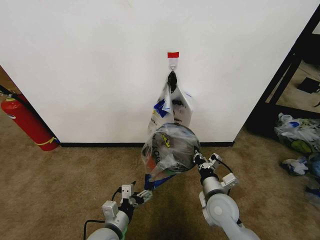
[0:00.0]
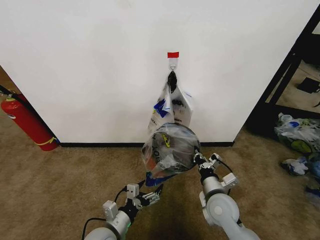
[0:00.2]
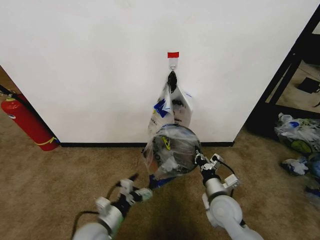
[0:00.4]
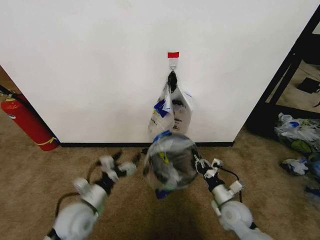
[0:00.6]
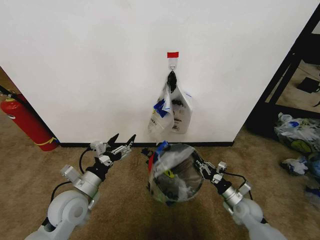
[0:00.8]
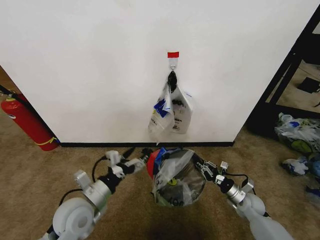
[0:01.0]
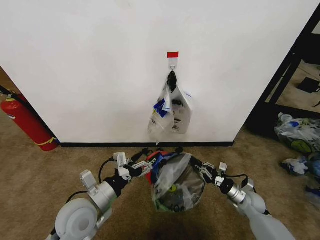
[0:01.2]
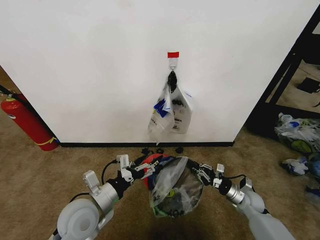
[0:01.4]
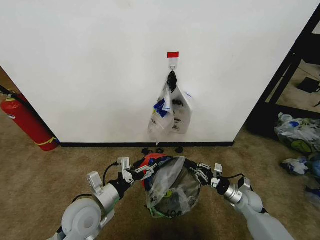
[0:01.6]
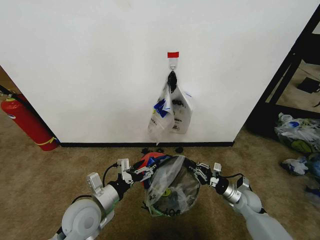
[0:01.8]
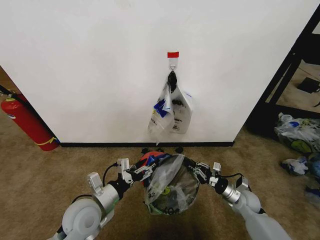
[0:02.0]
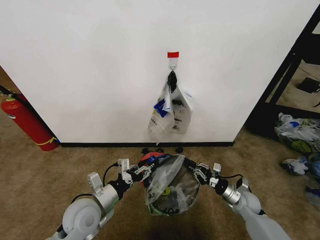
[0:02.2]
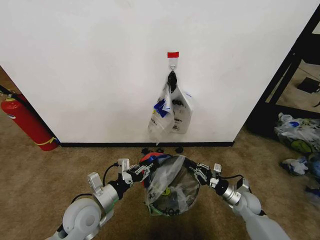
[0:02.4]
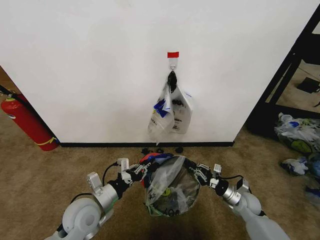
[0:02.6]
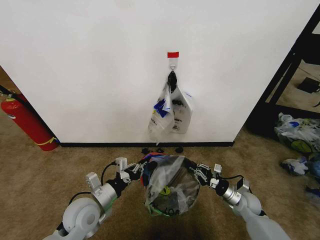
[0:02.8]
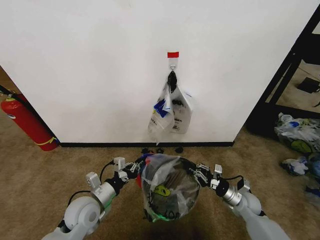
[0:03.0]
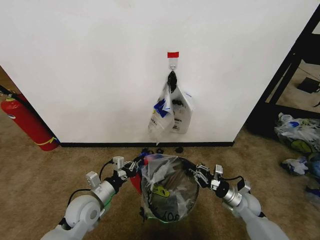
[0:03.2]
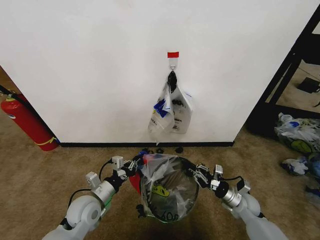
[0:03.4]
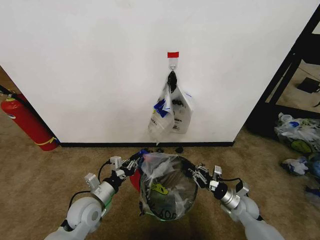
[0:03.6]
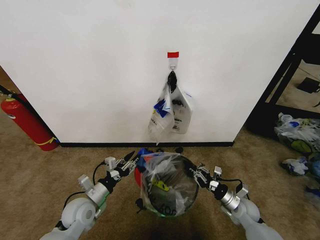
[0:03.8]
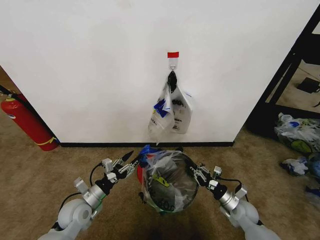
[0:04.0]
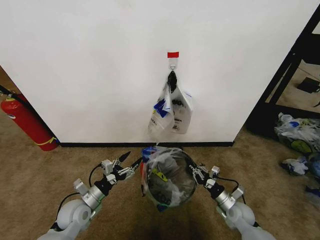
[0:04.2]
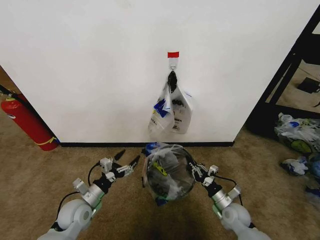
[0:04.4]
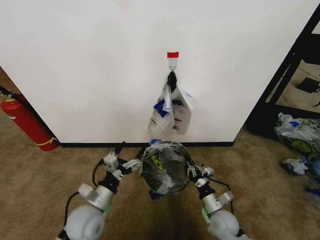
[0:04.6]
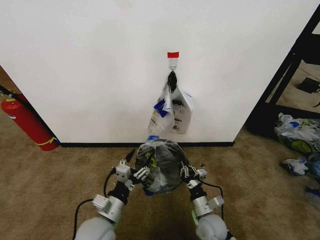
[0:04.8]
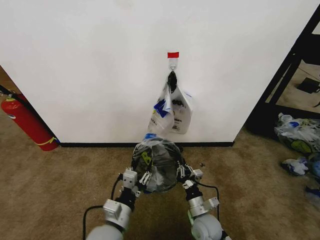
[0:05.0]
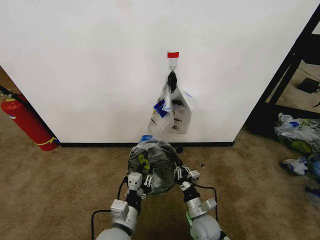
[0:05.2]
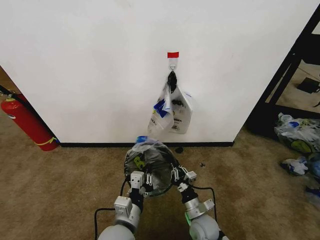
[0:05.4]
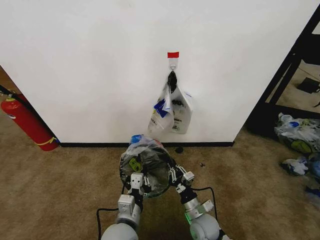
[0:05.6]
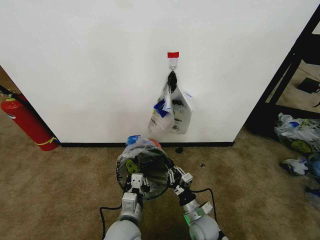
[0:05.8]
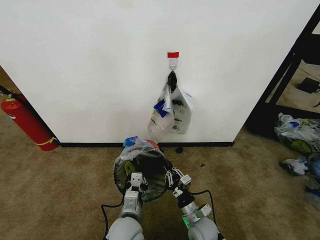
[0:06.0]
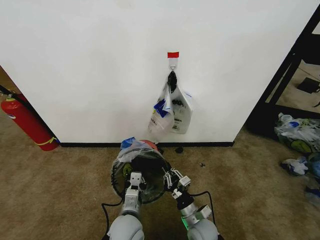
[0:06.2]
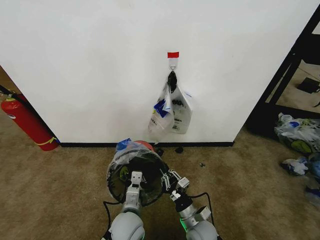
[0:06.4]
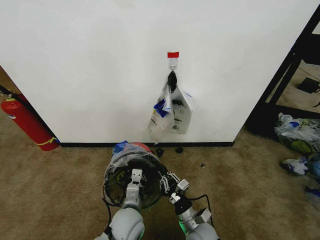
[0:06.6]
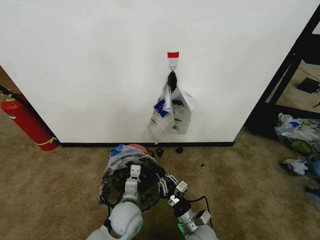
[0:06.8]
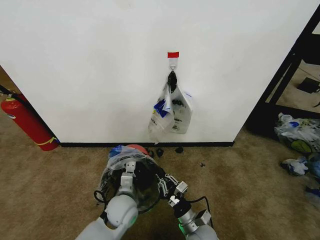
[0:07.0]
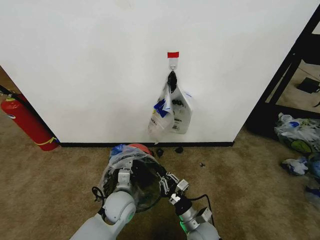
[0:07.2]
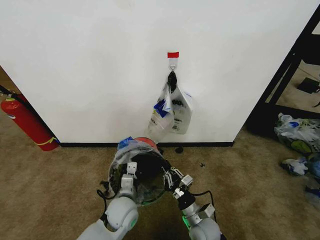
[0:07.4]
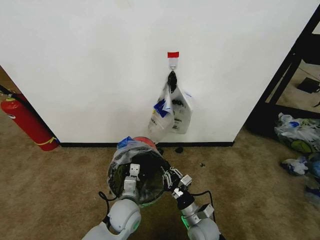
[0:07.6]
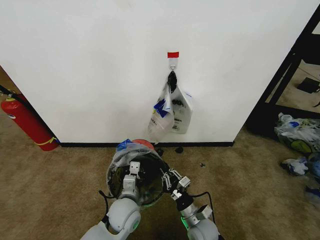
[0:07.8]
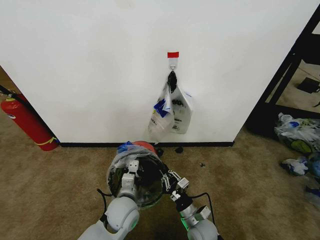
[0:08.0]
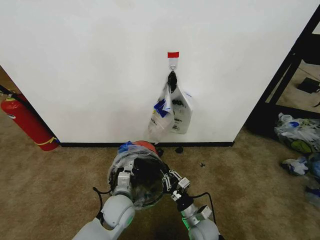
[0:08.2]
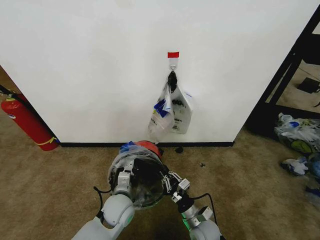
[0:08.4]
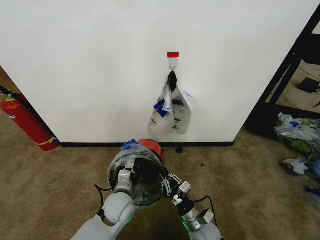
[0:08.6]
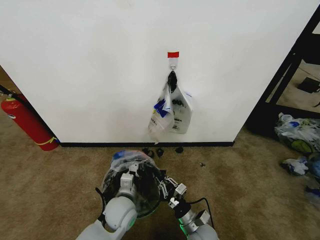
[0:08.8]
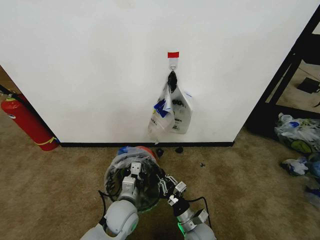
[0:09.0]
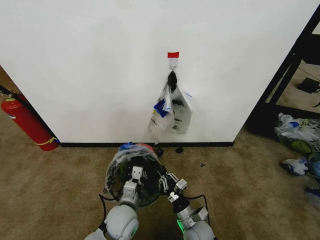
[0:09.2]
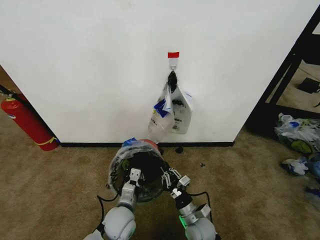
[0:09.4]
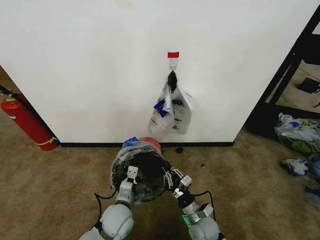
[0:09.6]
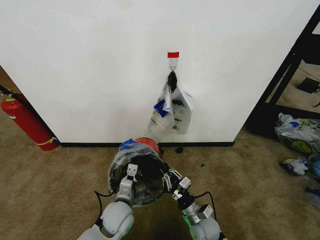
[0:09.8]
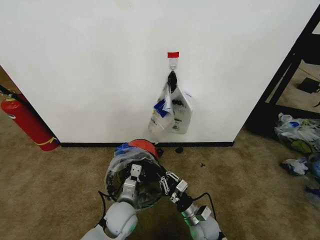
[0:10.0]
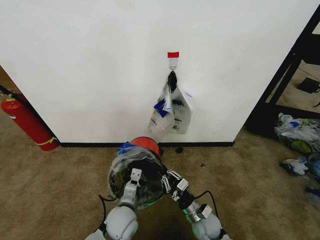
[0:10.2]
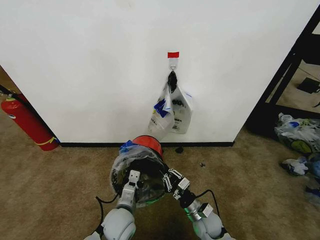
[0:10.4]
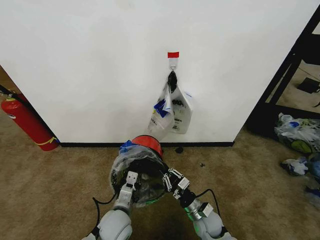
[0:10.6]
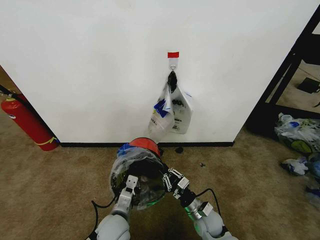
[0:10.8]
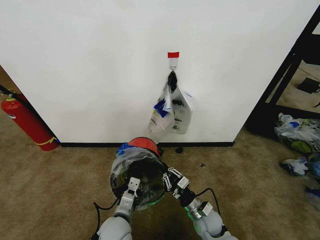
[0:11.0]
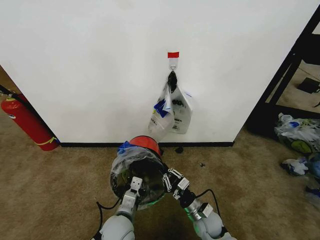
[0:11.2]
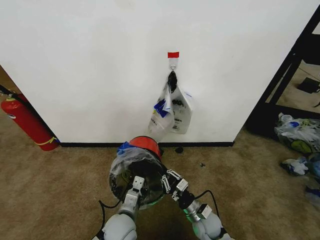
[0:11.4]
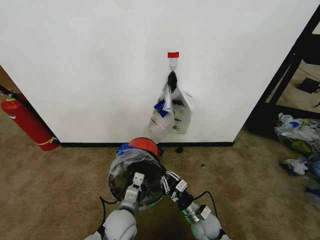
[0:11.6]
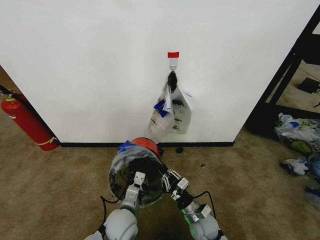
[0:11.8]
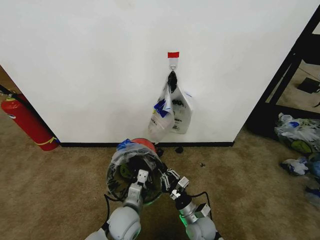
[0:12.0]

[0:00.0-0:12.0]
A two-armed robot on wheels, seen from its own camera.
Task of the whole recording: Pick up the garbage bag from the wall and place it over the trash bin.
0:00.0 to 0:01.6: The left gripper shifts roughly 10 cm upward and forward; the right gripper shifts approximately 20 cm to the right and downward.
0:01.6 to 0:03.0: The left gripper moves some 5 cm, and closes up.
0:03.0 to 0:04.4: The right gripper moves to the left, roughly 5 cm; the left gripper shifts by approximately 5 cm, and opens.
0:04.4 to 0:06.0: The left gripper moves to the right, some 20 cm, and closes. The right gripper travels to the left by roughly 15 cm.
0:06.0 to 0:07.6: The left gripper shifts approximately 5 cm forward.
0:07.6 to 0:09.0: There are only small adjustments of the grippers.
0:09.0 to 0:10.4: The right gripper changes place by approximately 5 cm.
0:10.4 to 0:12.0: The grippers make only small movements.

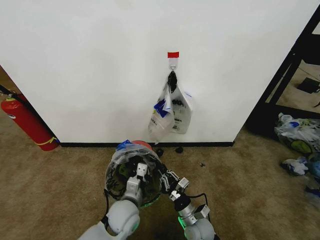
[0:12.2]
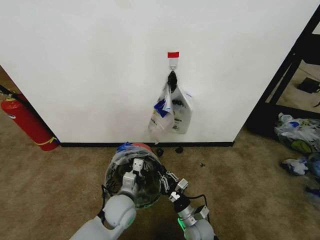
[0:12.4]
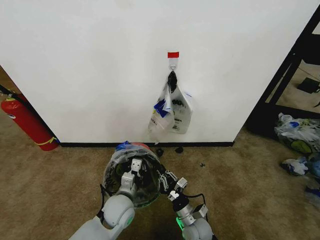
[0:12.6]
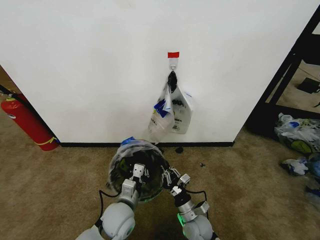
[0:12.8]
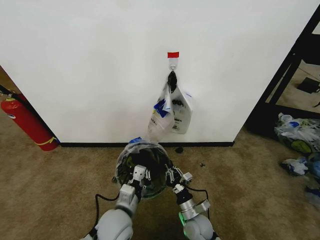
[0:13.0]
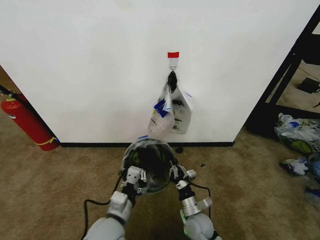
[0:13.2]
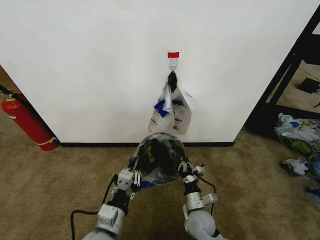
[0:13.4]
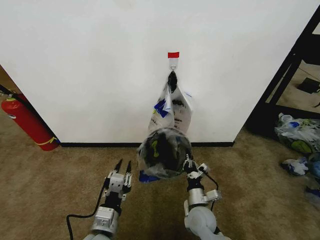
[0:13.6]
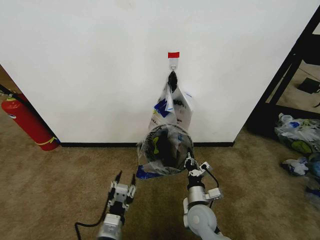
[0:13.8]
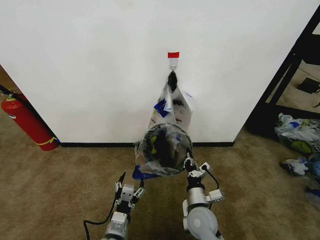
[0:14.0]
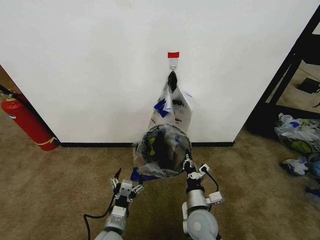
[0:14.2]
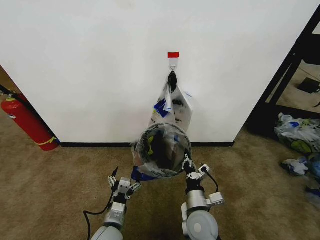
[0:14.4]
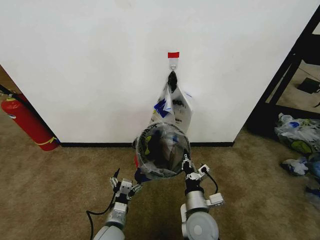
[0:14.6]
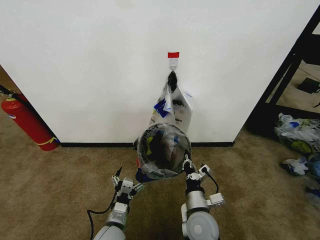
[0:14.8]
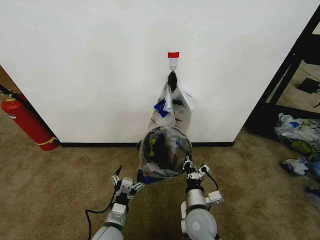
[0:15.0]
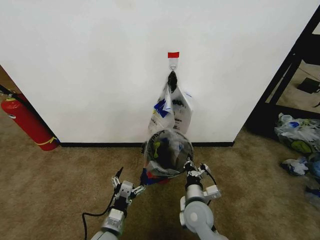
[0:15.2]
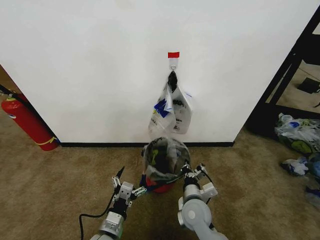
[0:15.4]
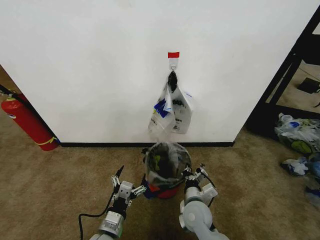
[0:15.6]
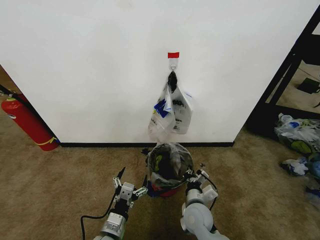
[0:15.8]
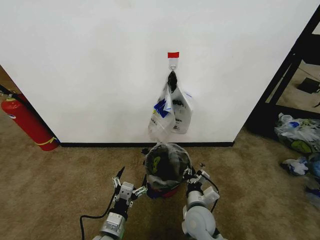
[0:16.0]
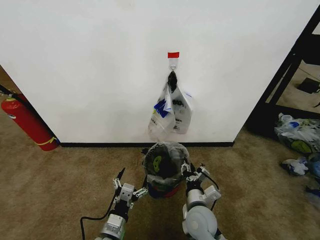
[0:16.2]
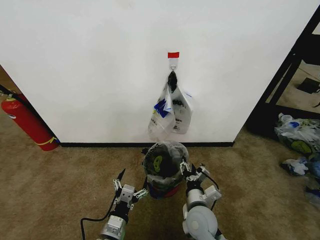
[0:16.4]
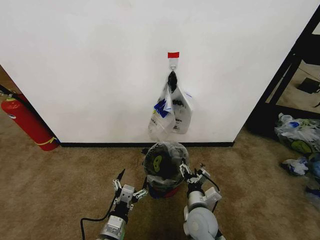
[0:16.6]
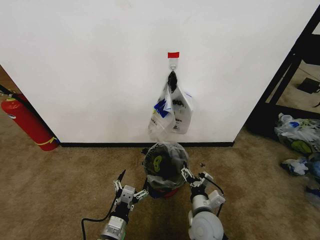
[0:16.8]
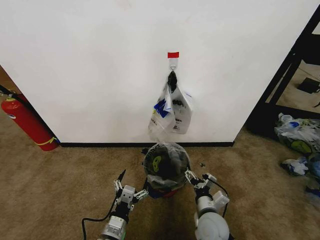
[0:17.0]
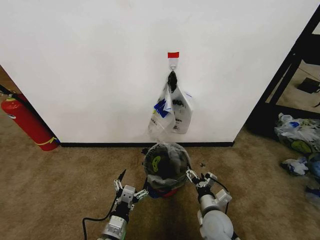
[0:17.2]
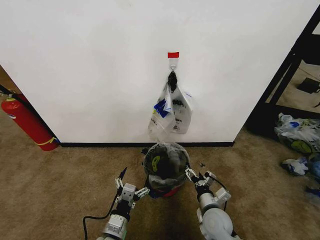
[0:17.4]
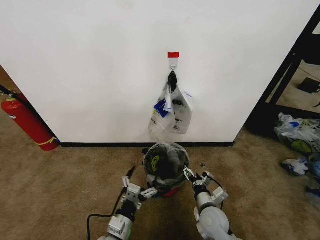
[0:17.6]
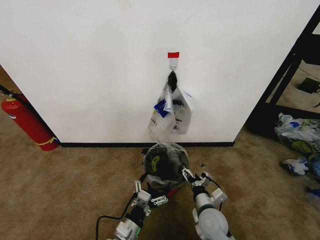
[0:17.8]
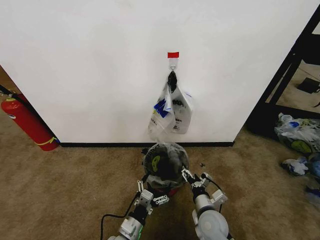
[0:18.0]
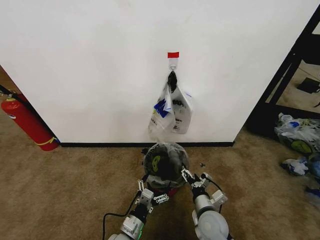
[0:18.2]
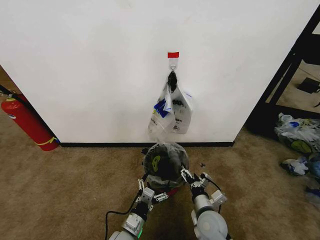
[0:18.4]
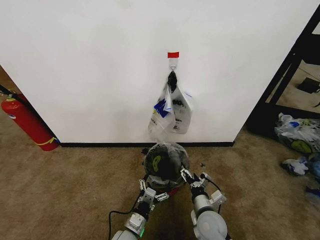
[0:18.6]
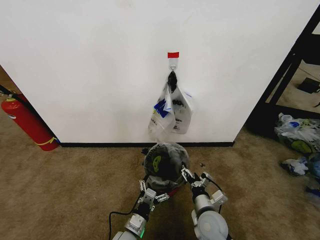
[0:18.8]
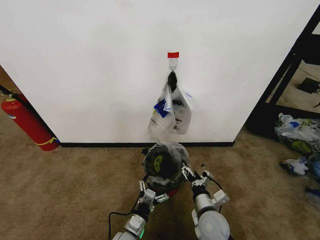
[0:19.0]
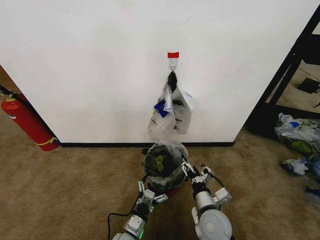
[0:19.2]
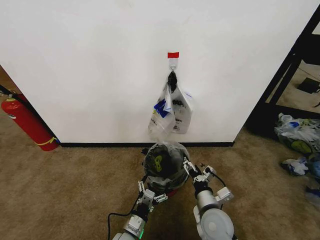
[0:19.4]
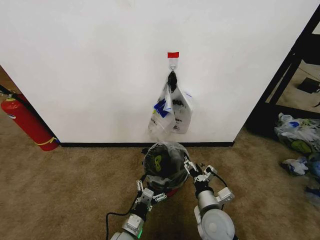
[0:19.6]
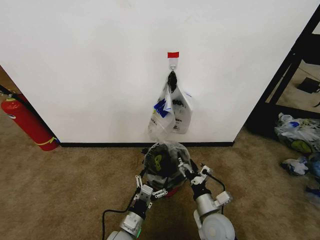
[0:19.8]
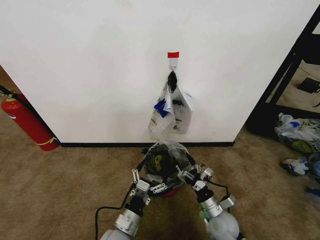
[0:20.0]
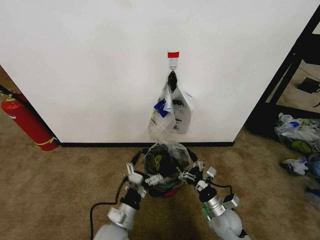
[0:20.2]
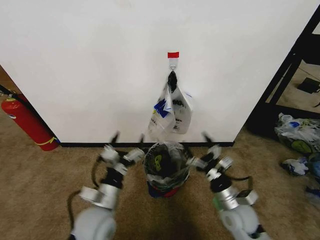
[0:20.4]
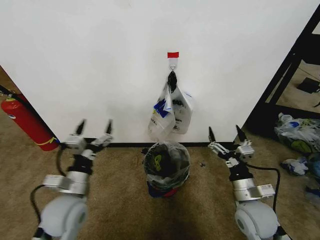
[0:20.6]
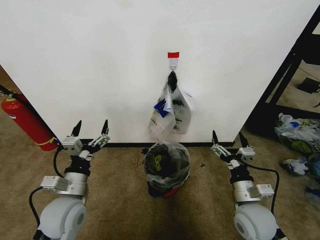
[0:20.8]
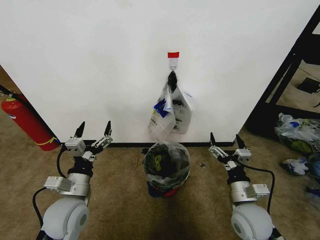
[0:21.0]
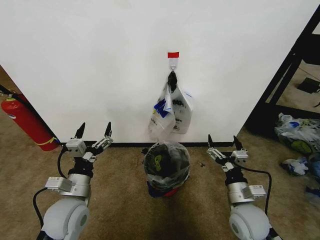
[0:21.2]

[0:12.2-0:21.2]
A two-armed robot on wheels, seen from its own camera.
Task of the whole recording: Pick up the garbage bag from the wall and place it over the trash bin.
0:12.2 to 0:13.8: The right gripper is displaced upward by some 5 cm. The left gripper is displaced backward by approximately 10 cm, and opens.
0:13.8 to 0:15.2: The left gripper shifts by some 5 cm, and opens its fingers.
0:15.2 to 0:16.6: The right gripper opens.
0:16.6 to 0:18.2: The right gripper changes place by roughly 5 cm; the left gripper goes roughly 5 cm downward.
0:19.8 to 0:21.2: The left gripper heads upward and to the left, covering some 20 cm, while the right gripper goes about 10 cm to the right and upward.
